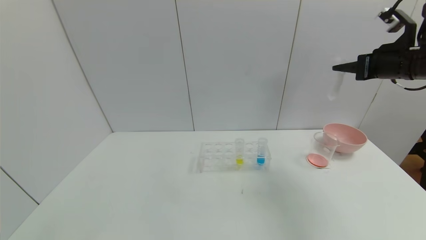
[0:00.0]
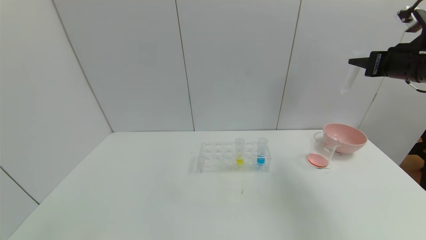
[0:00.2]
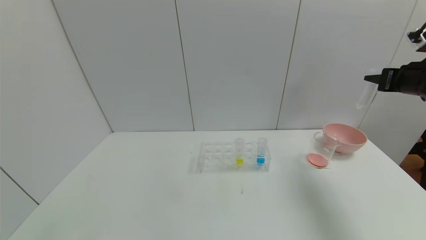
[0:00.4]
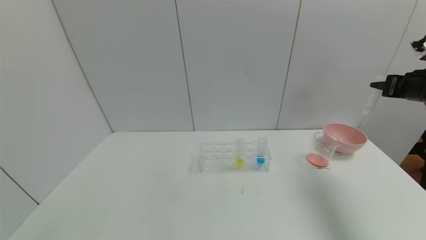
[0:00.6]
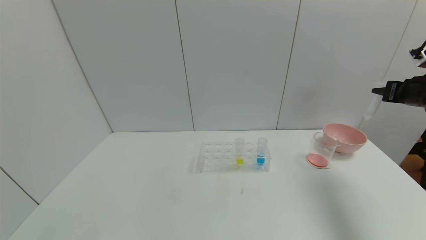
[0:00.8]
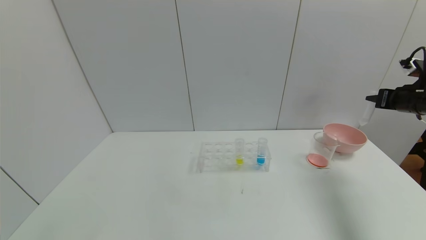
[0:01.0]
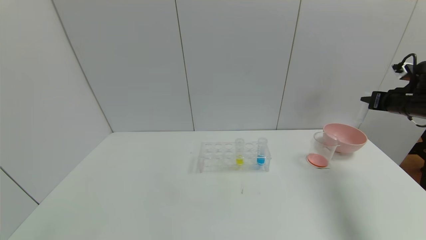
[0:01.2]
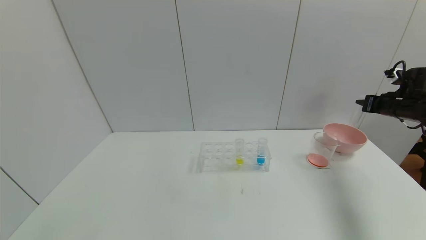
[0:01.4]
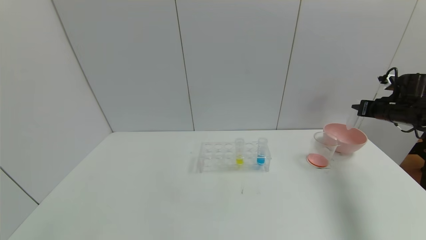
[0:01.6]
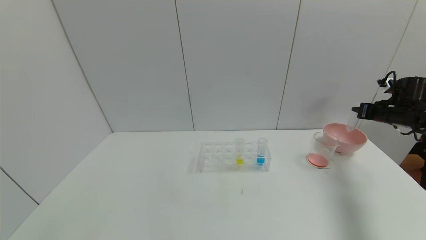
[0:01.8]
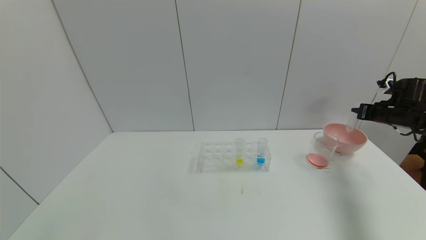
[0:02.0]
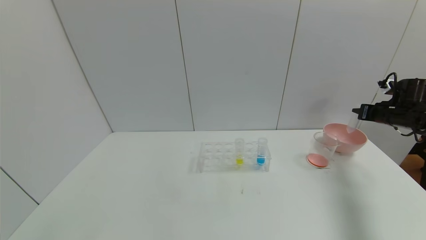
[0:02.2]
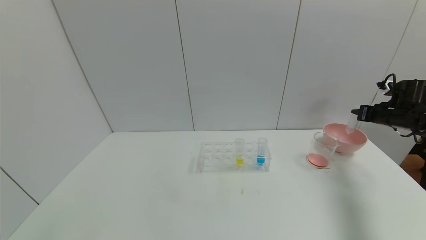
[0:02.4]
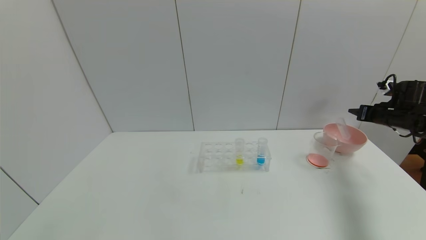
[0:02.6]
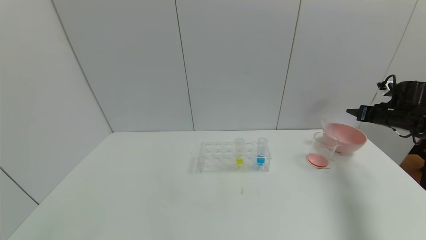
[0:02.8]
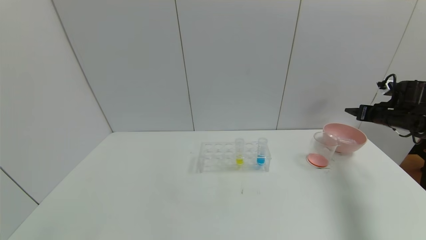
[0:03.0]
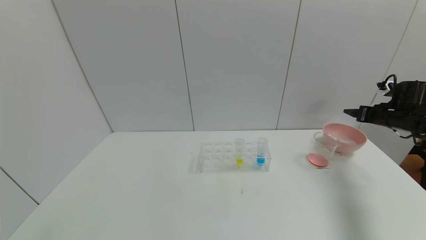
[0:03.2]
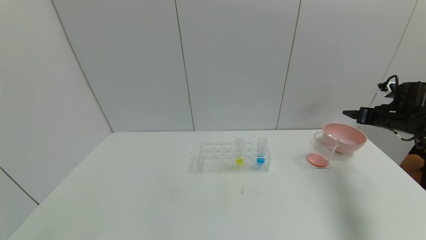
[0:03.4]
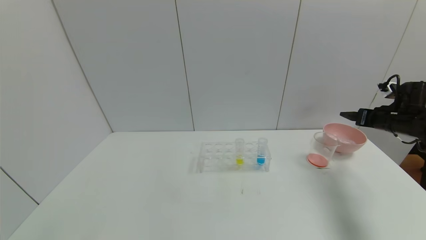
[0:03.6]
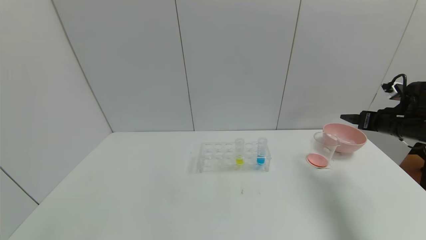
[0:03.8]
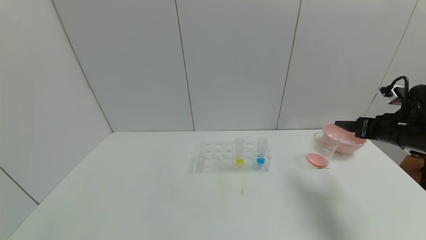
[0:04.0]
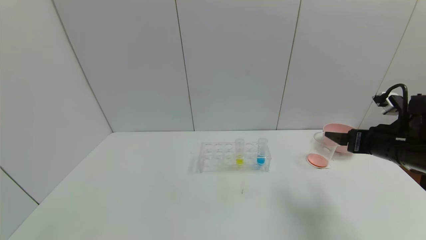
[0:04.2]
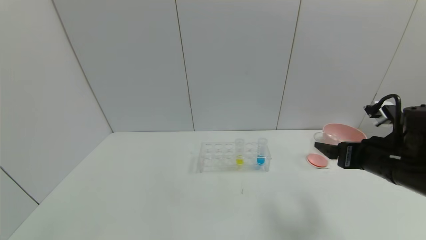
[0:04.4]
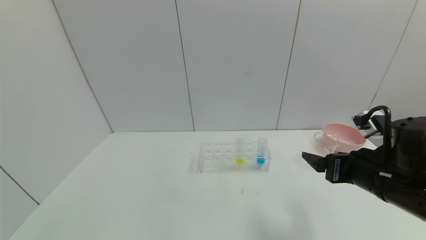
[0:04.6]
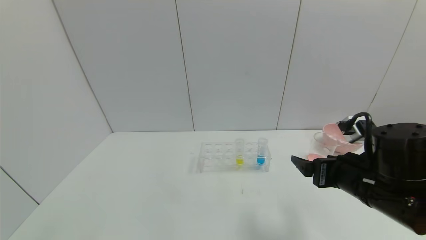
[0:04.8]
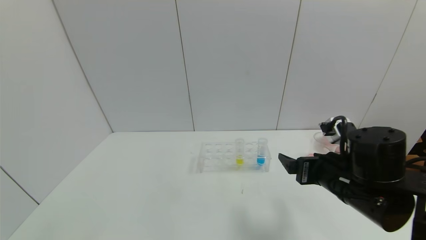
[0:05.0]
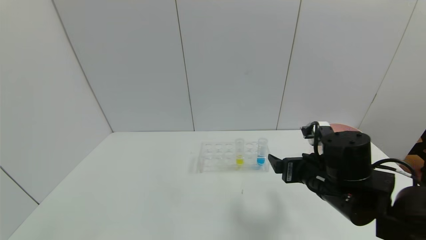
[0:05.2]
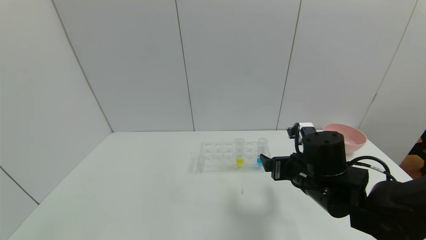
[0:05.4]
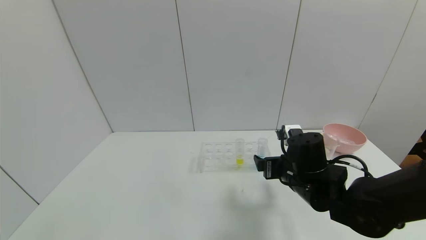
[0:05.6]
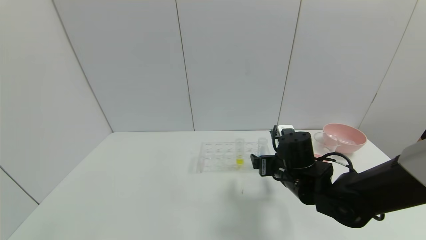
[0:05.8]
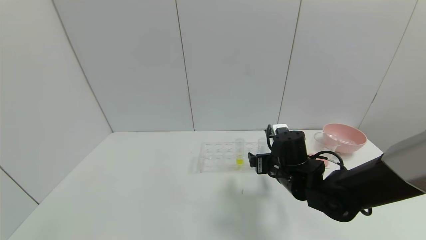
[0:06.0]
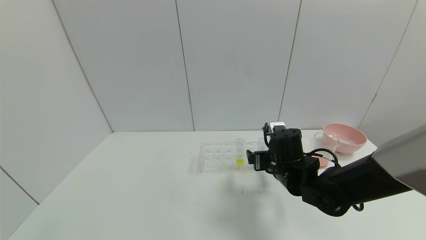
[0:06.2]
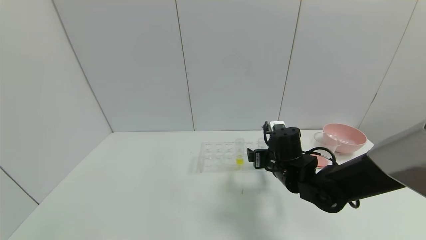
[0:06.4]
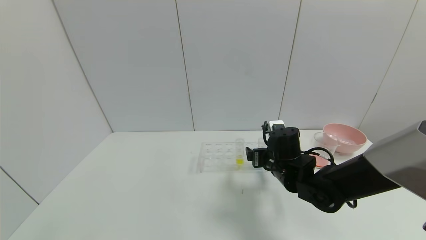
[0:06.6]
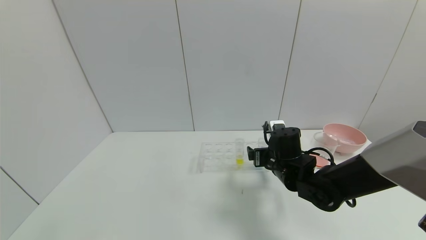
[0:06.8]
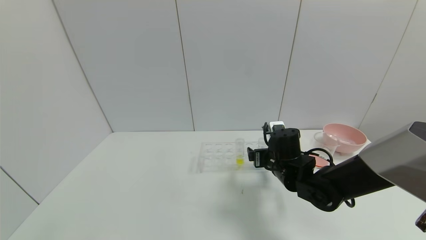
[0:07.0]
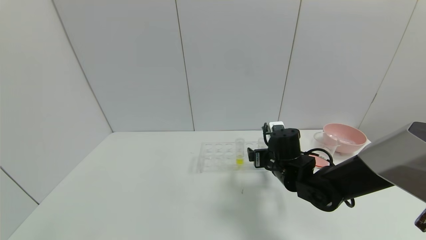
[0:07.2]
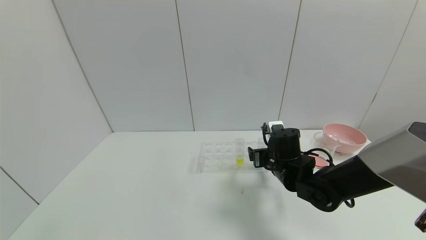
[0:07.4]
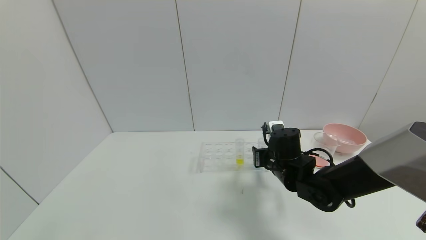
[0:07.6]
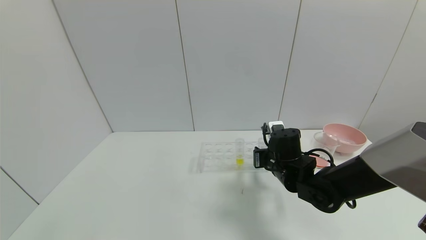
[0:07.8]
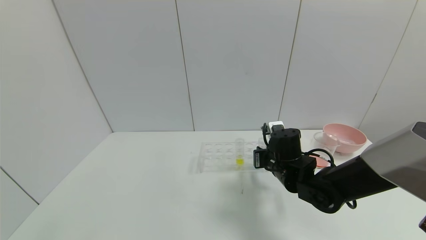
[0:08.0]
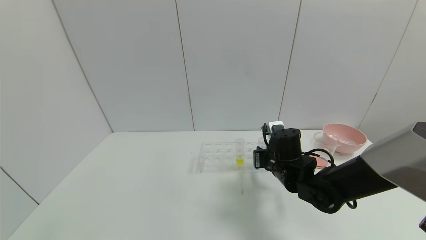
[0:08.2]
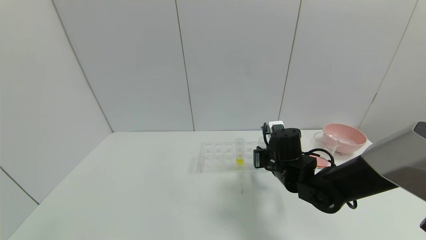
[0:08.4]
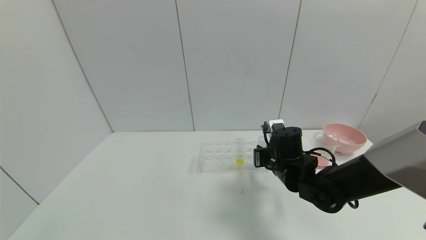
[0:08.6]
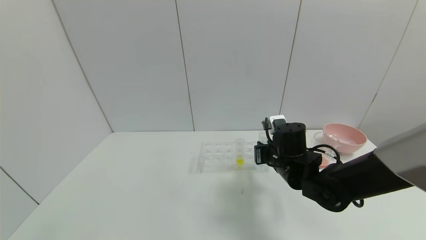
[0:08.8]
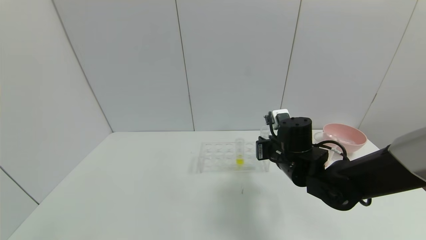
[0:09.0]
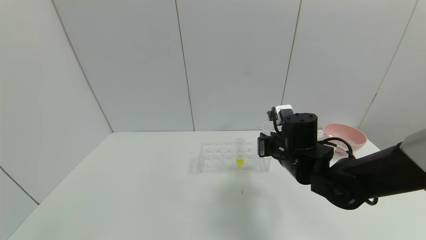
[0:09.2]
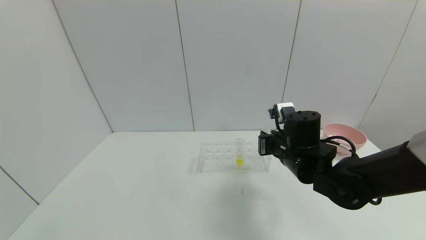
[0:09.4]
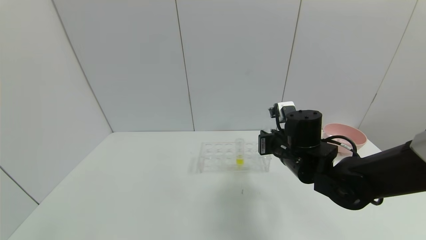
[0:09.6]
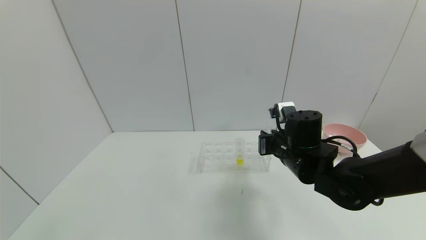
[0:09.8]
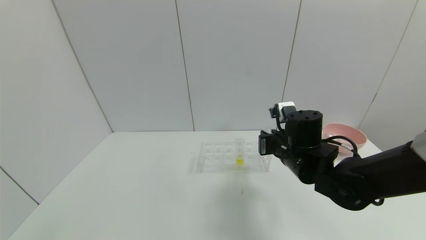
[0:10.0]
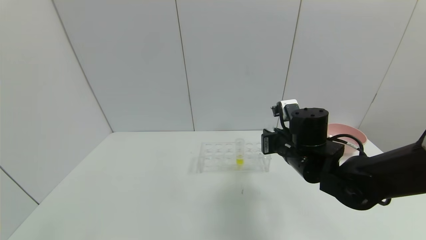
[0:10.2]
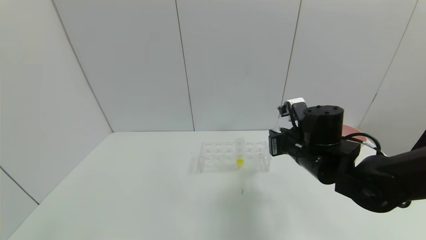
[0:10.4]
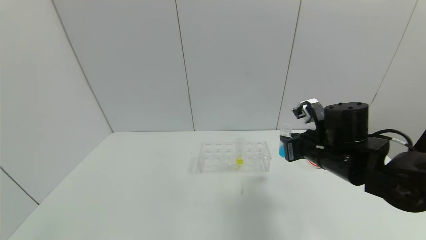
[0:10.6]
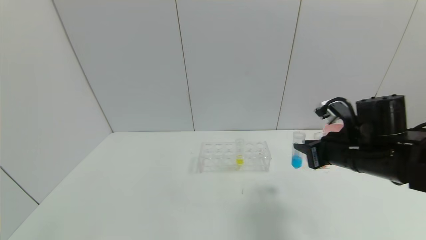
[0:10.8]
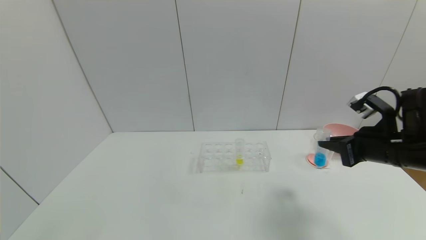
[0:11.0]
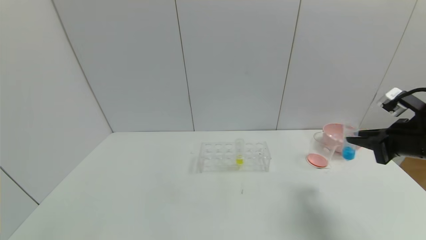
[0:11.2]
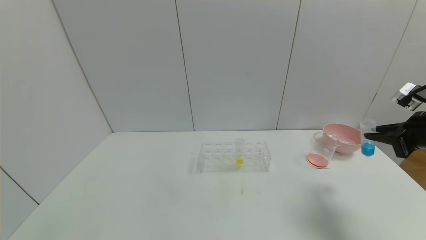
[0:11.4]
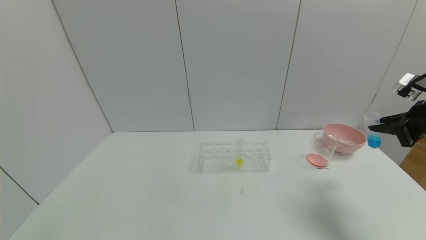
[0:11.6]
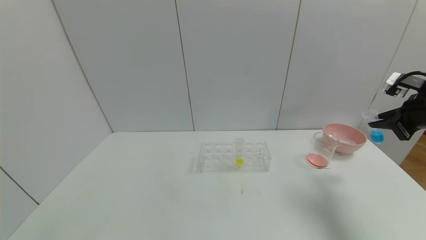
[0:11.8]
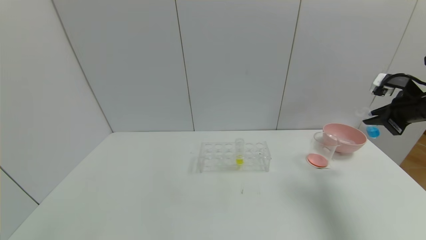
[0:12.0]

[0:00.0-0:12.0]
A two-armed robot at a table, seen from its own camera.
Task of the whole recording: pick up the test tube with red pigment and the test tube with blue pigment by grippers and pour them into the container.
Step, 0.0 to 2.8 s: Place the test tube into the bowl with the right gripper.
Step, 3.0 to 8.2 s: Grasp the blue reagent with the right gripper.
0.0 to 1.6 s: The right gripper heads downward, to the right and forward, covering approximately 20 cm.
1.6 to 3.0 s: The right gripper opens up.
3.0 to 4.4 s: The right gripper moves backward and to the left, about 30 cm.
4.4 to 6.0 s: The right gripper shifts roughly 20 cm to the left, downward and forward.
6.0 to 7.6 s: The right gripper closes up.
7.6 to 9.0 s: The right gripper closes.
9.0 to 10.4 s: The right gripper changes place by roughly 5 cm.
10.4 to 12.0 s: The right gripper shifts roughly 25 cm to the right.

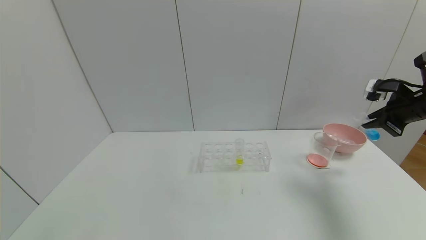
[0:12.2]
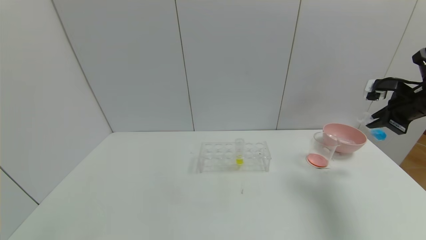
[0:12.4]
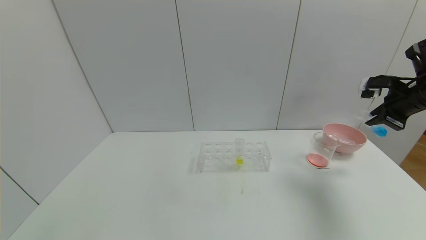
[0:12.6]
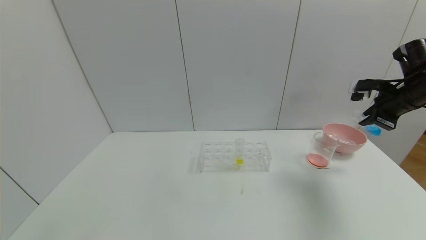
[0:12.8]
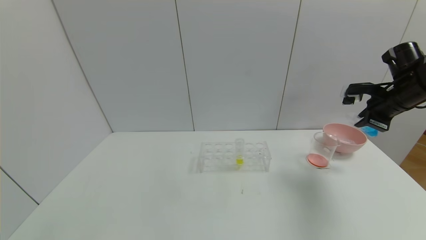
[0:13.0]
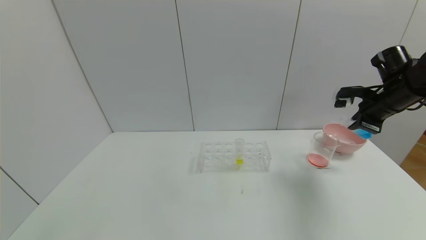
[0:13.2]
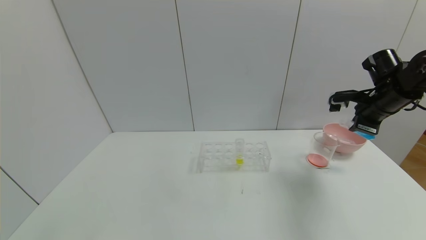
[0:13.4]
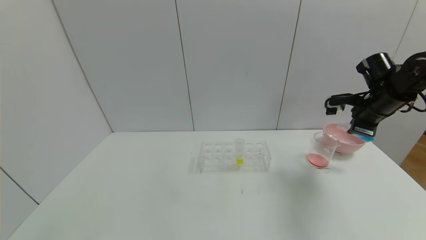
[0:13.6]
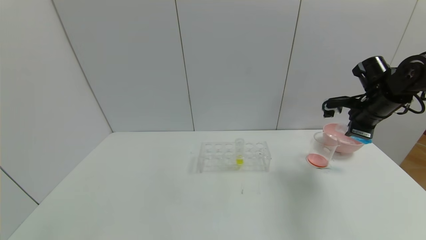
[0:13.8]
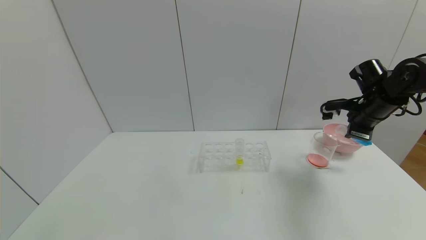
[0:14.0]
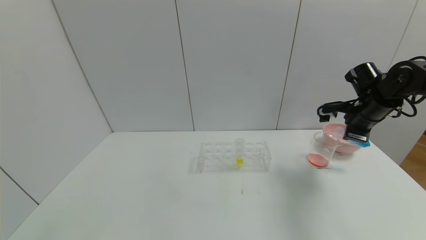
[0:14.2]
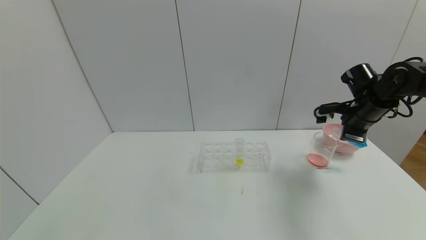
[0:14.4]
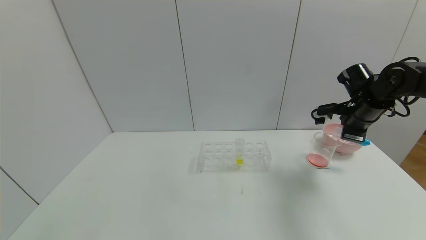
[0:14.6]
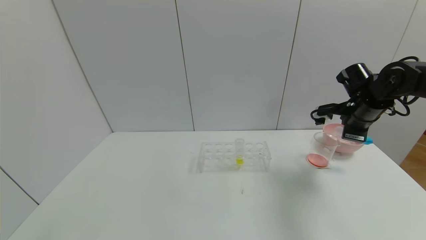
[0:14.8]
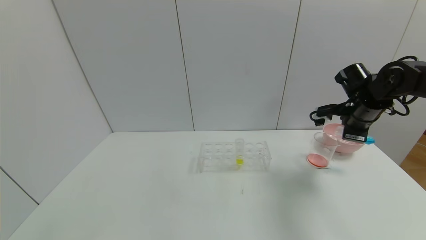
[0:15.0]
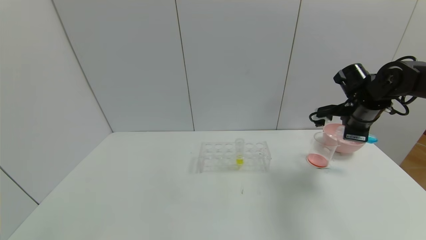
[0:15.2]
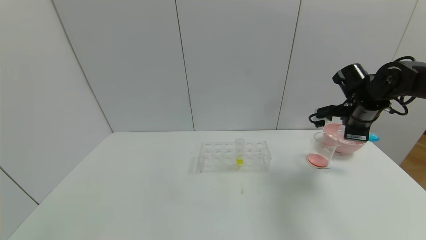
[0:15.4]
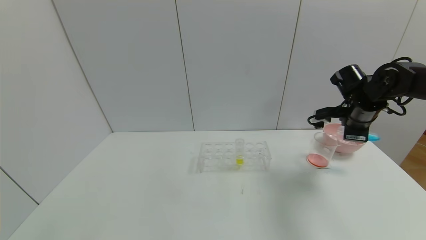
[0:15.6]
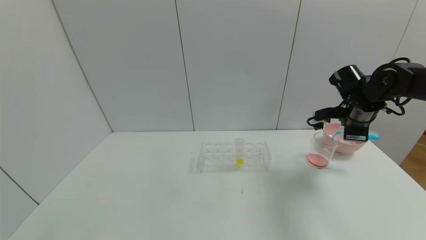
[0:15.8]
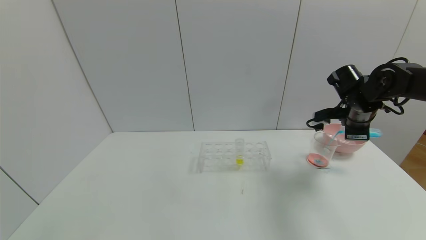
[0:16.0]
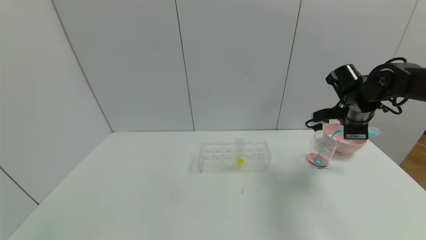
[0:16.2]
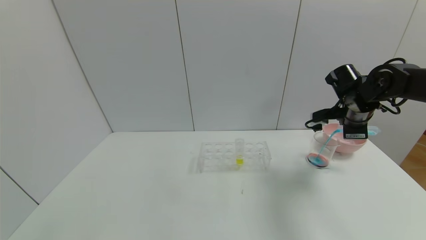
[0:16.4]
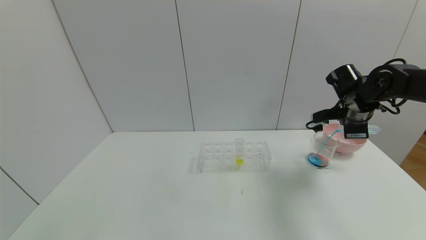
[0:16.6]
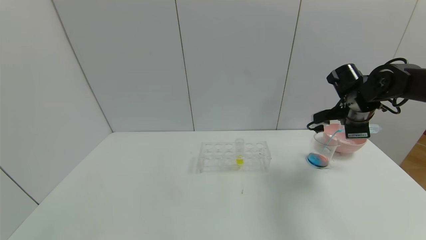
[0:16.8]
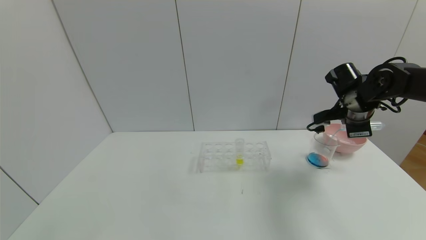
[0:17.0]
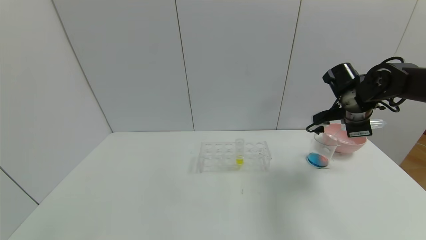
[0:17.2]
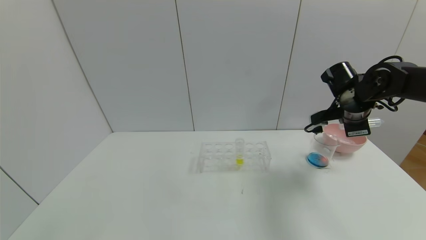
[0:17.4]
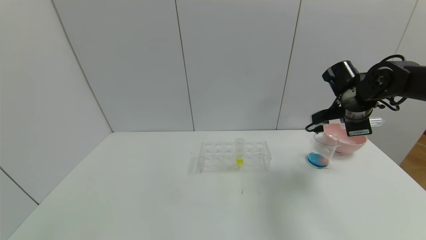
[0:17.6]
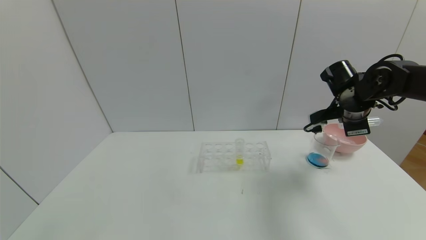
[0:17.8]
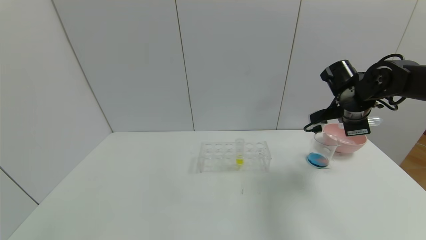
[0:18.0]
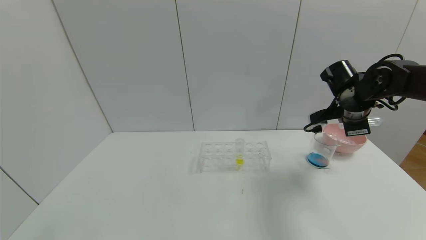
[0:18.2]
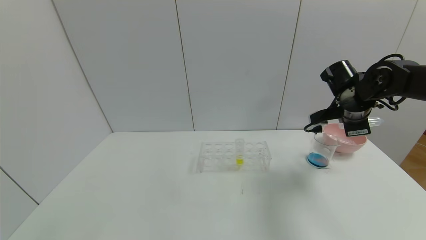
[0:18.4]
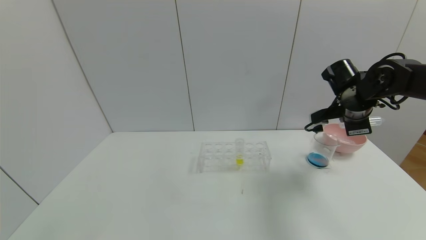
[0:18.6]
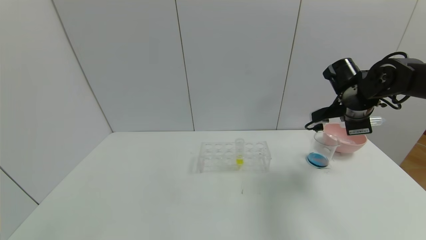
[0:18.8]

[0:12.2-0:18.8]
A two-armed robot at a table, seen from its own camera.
Task of the whole recording: pick up the test tube with red pigment and the test tube with blue pigment by grippers and pour them into the container.
Step, 12.2 to 17.4 s: Pour the blue reagent into the graduated cylinder with the right gripper.
12.2 to 13.8 s: The right gripper is displaced to the left by some 5 cm.
13.8 to 15.4 s: The grippers make only small movements.
15.4 to 17.2 s: The grippers stay close to where they were, moving slightly.
17.2 to 18.8 s: Both grippers stay put.
